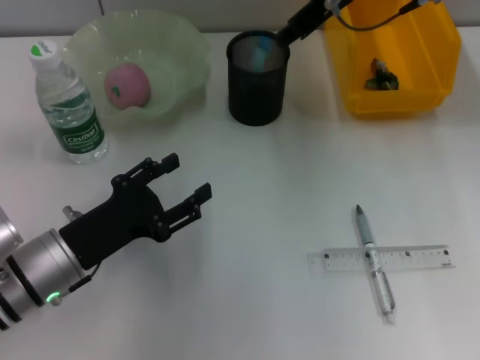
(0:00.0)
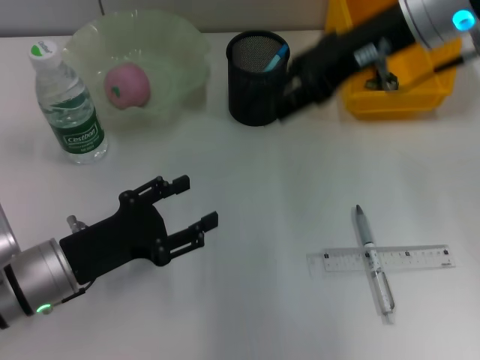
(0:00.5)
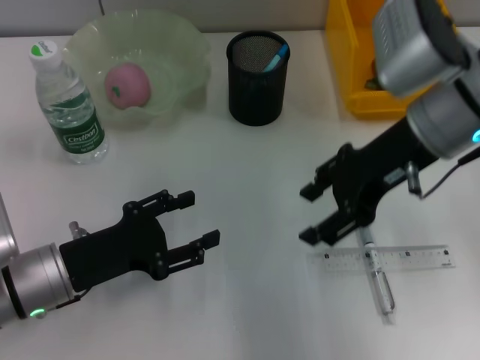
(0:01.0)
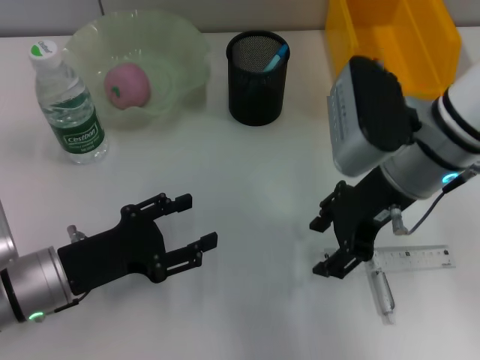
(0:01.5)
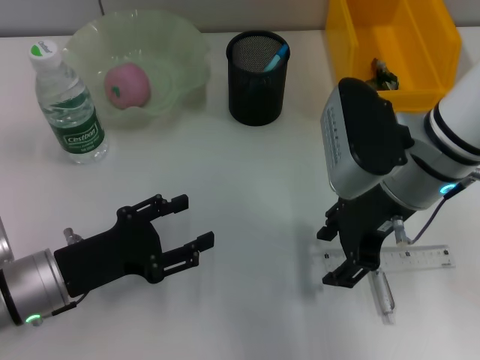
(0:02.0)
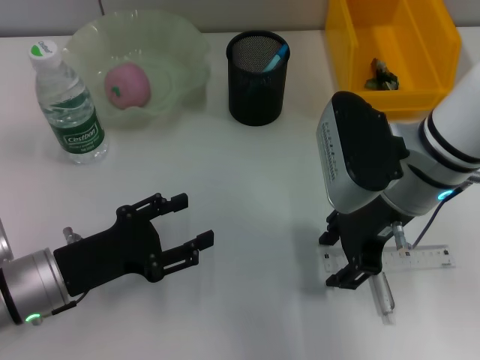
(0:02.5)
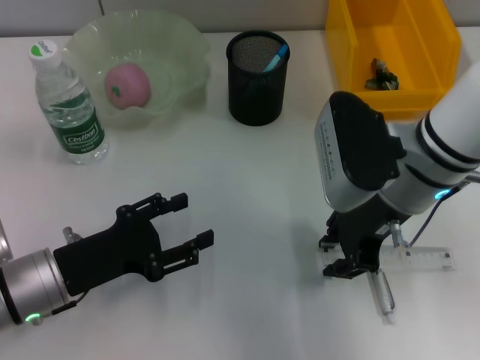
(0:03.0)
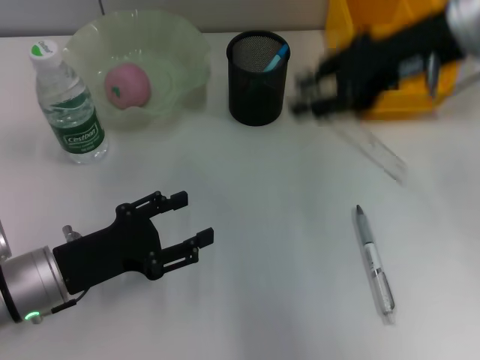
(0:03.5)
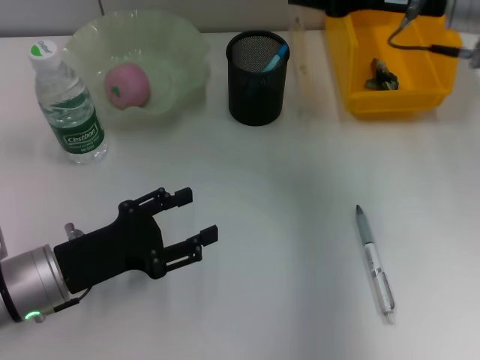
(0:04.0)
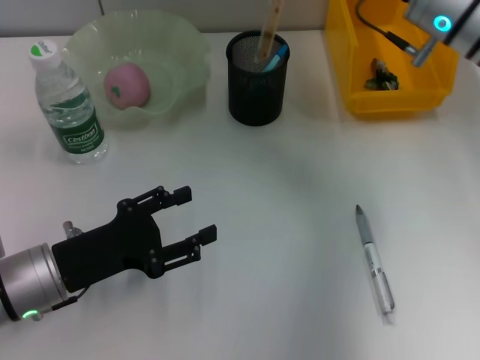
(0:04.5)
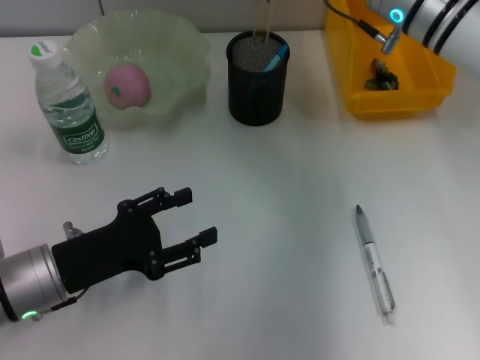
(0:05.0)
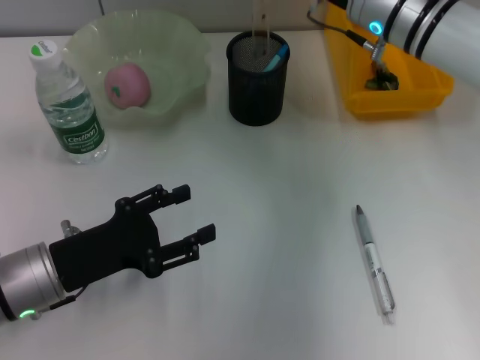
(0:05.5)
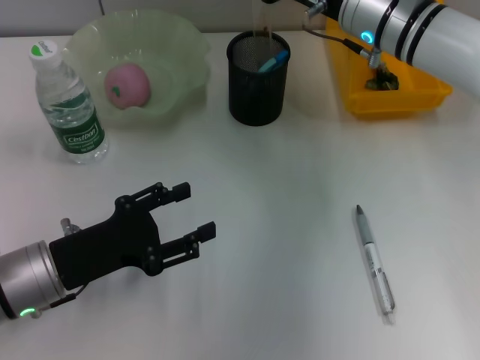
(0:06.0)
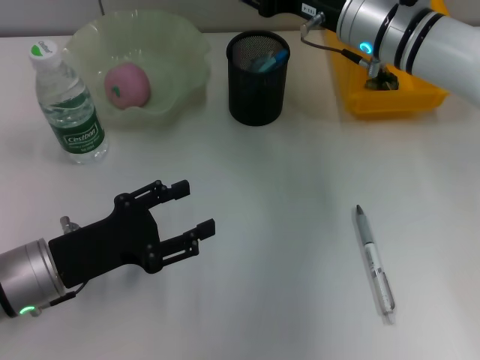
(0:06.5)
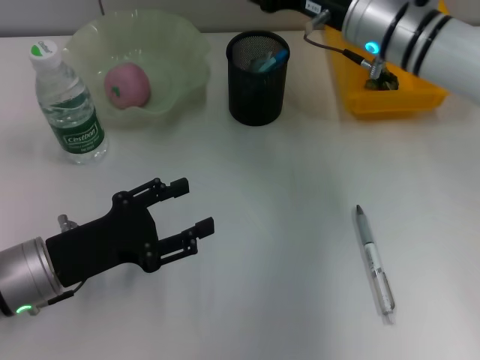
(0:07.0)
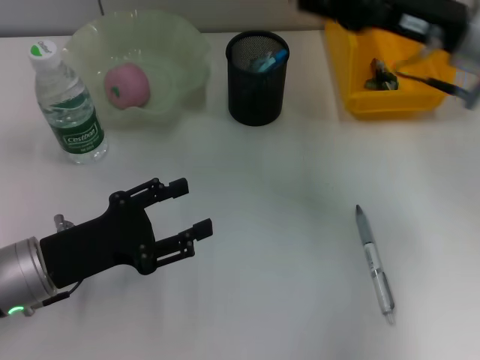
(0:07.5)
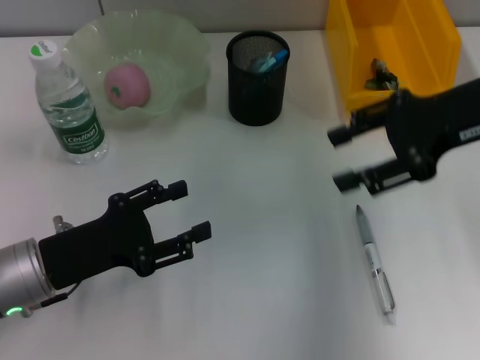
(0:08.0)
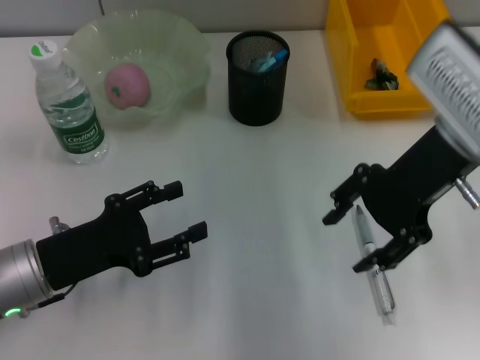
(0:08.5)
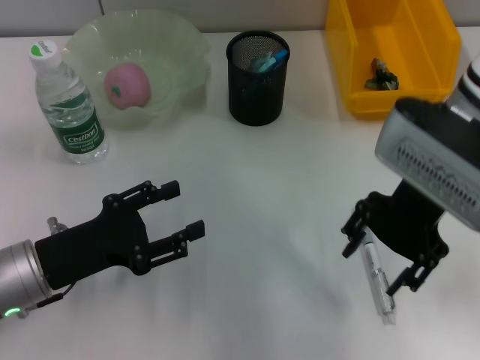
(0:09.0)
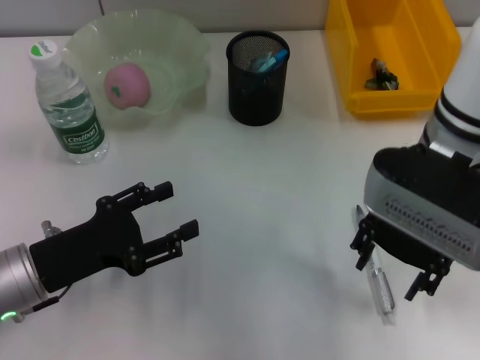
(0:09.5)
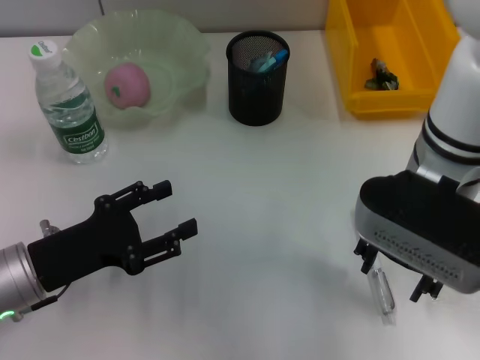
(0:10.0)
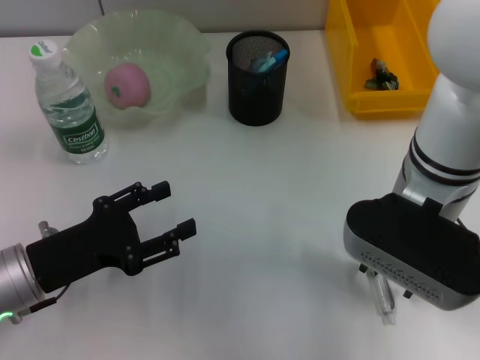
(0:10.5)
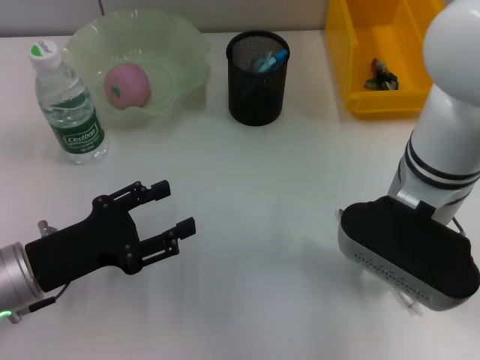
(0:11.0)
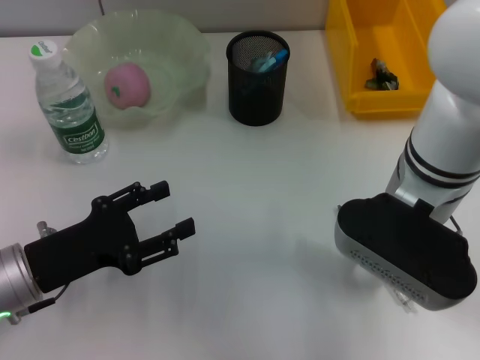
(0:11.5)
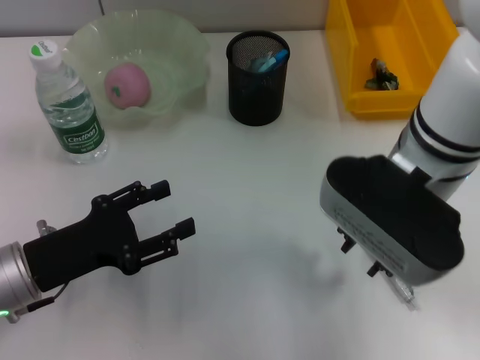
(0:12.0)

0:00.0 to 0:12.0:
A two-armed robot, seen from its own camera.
Step, 0:00.0 to 0:02.5: Grab the ruler with the right hand.
Step, 0:03.0 to 0:06.5: Place the ruler into the pen holder with the right hand.
0:00.0 to 0:02.0: The right gripper travels backward and downward by approximately 15 cm, and opens up.
0:02.0 to 0:04.0: The right gripper moves upward, forward and to the right, about 10 cm, and closes its fingers.
0:04.0 to 0:06.0: The right gripper heads to the left and downward, covering roughly 10 cm.
0:06.0 to 0:08.0: The right gripper shifts some 15 cm to the right, backward and upward, and opens its fingers.
0:08.0 to 0:10.0: The right gripper travels to the left by about 10 cm.
0:10.0 to 0:12.0: The right gripper closes.

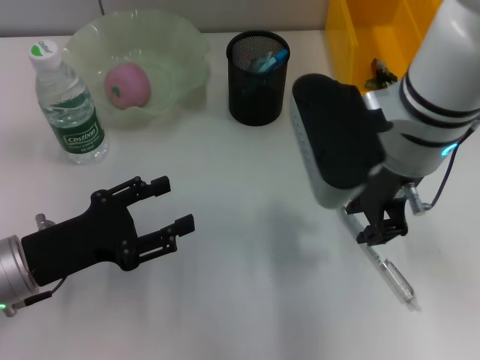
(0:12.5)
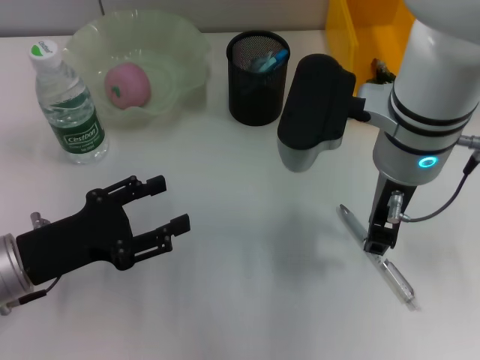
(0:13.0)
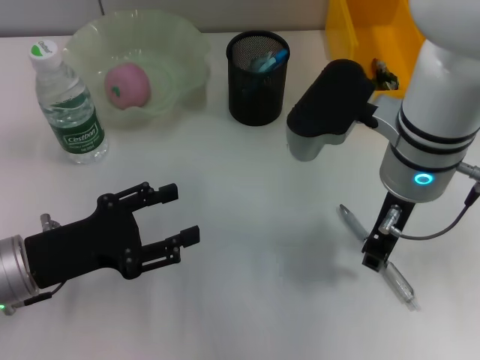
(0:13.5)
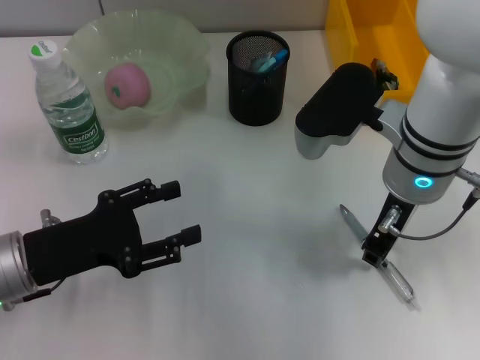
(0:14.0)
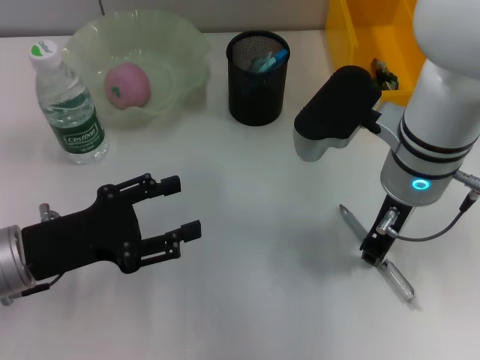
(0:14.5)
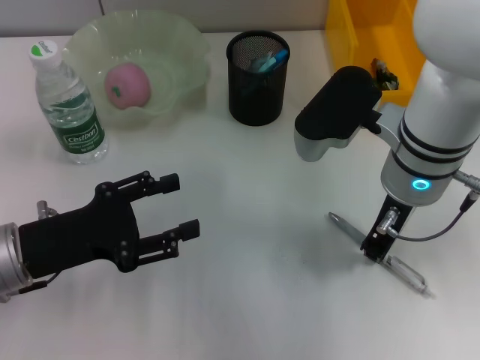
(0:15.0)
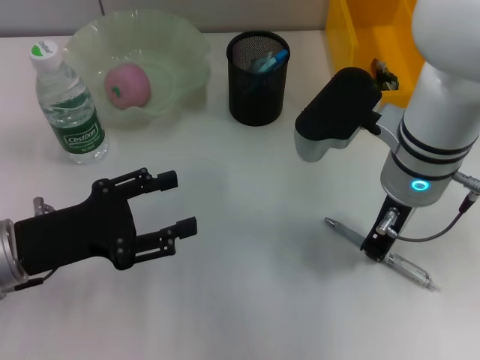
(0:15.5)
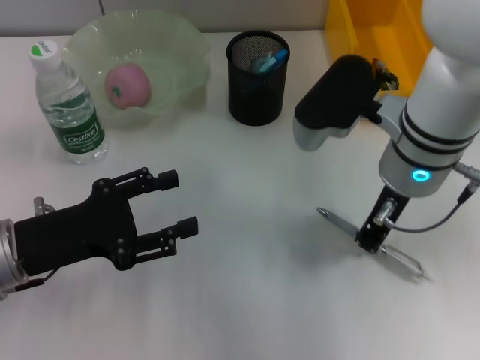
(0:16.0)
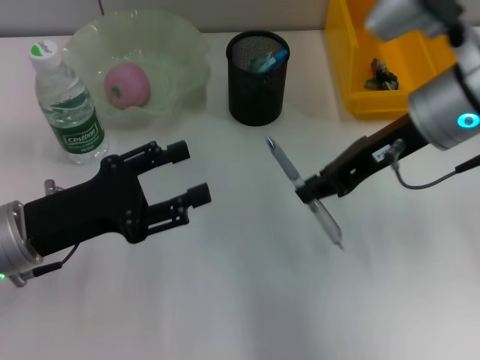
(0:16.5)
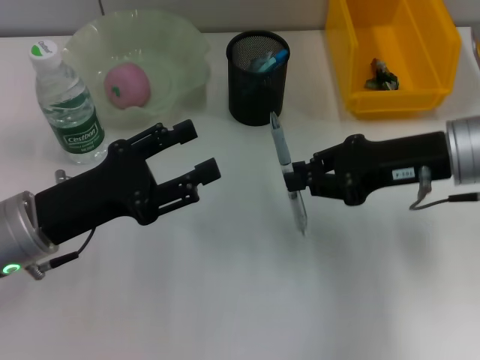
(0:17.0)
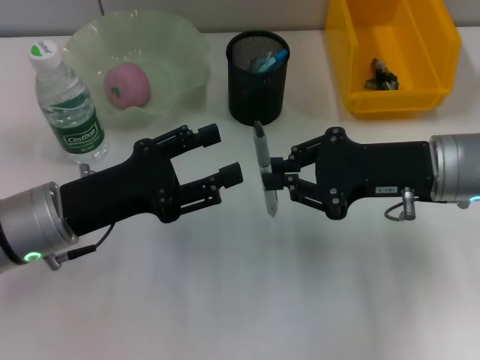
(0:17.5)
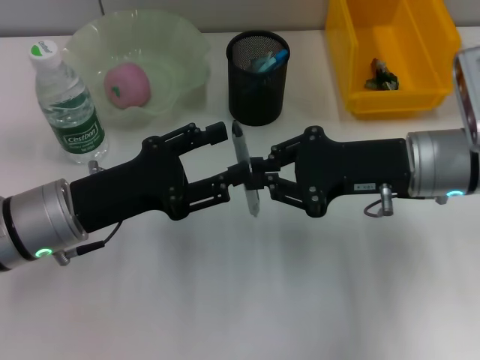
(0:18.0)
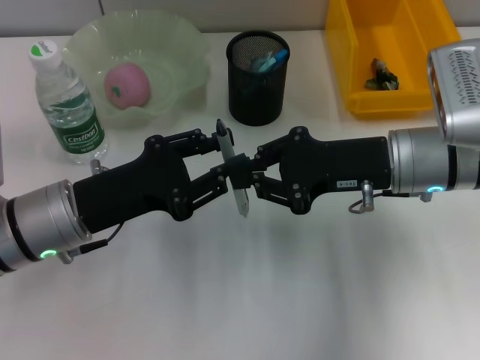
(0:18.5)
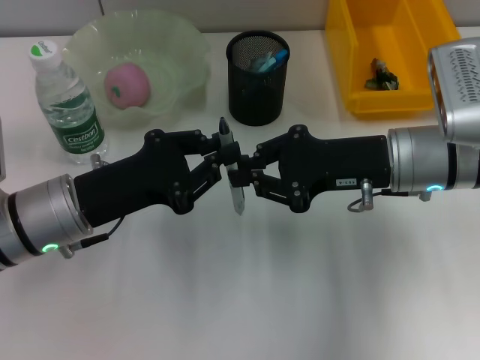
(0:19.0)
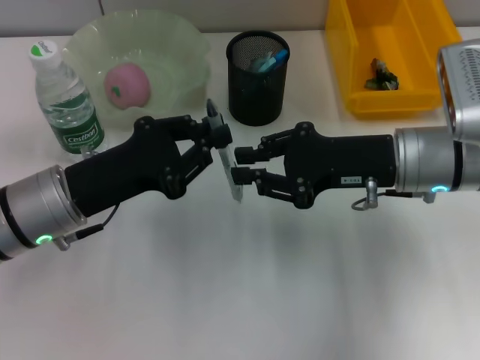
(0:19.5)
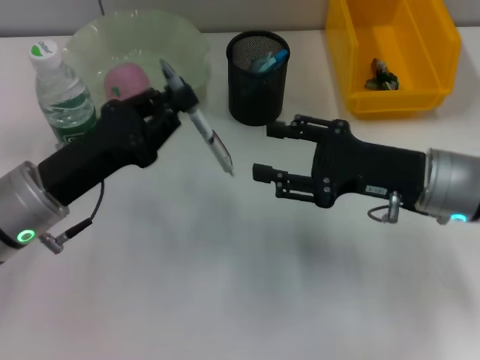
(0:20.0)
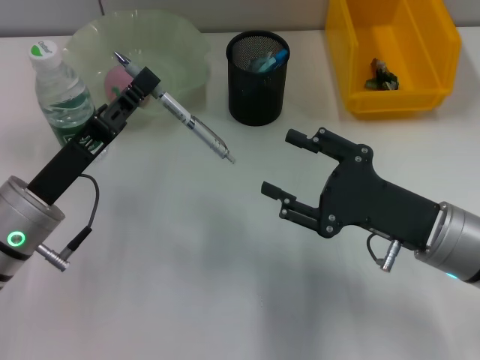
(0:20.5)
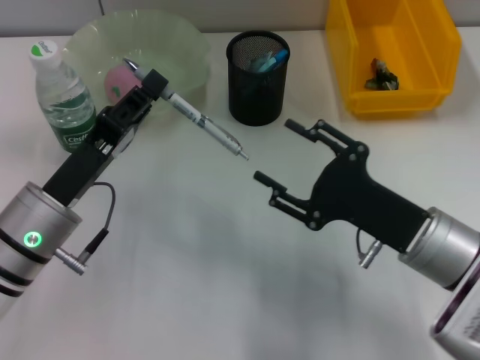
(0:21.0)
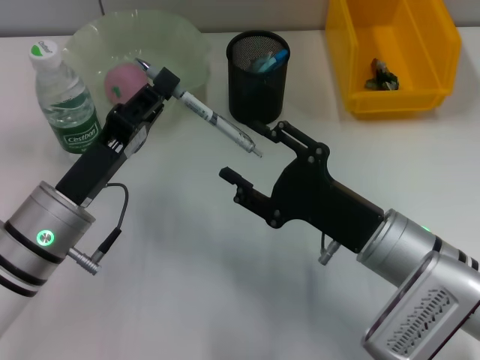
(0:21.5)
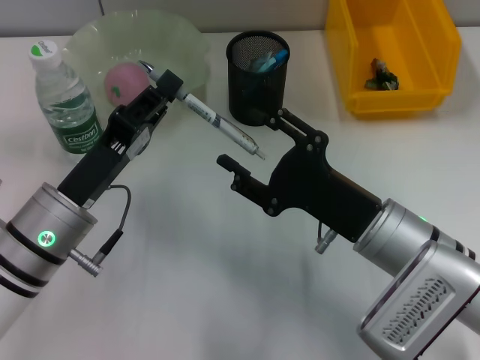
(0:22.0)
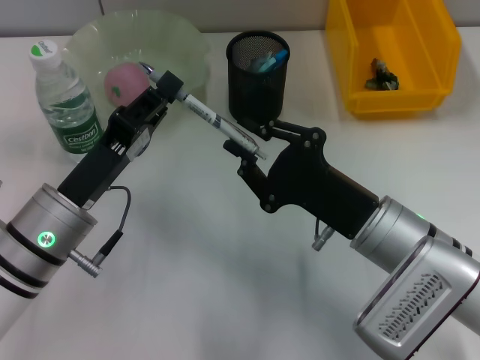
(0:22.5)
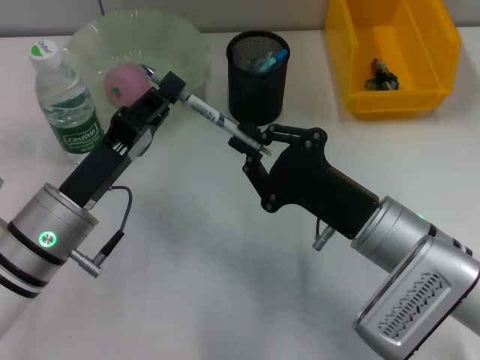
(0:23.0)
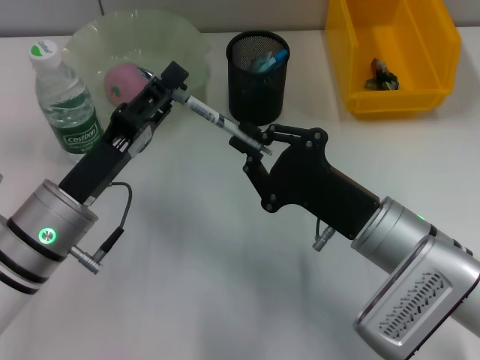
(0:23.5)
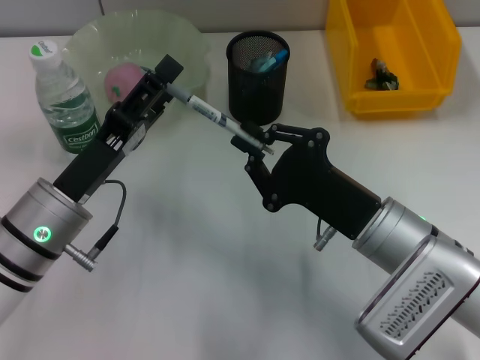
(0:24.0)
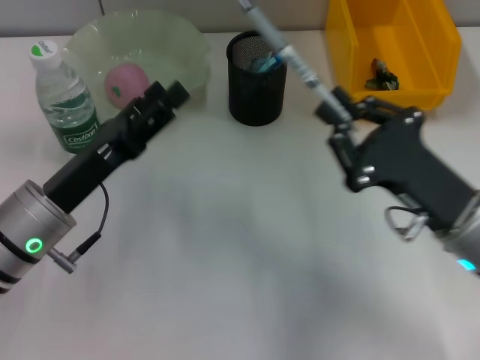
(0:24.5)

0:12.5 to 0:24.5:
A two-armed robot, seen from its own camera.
Step, 0:12.5 to 0:15.0: Grab the gray spring-action pen with the right hand.
Step, 0:16.0 to 0:19.5: Pass the gray spring-action pen from the right hand to the left hand.
Step, 0:20.0 to 0:24.0: Pass the gray spring-action pen from the left hand to the right hand.
0:12.5 to 0:14.5: The right gripper goes some 5 cm downward.
0:14.5 to 0:16.5: The right gripper moves roughly 5 cm.
0:16.5 to 0:18.5: The right gripper goes roughly 10 cm downward.
0:18.5 to 0:20.5: The right gripper heads backward and downward, covering about 10 cm, and opens; the left gripper closes its fingers.
0:20.5 to 0:22.5: The right gripper heads to the left, covering some 5 cm.
0:22.5 to 0:24.5: The right gripper moves to the right, about 5 cm, and closes; the left gripper opens up.

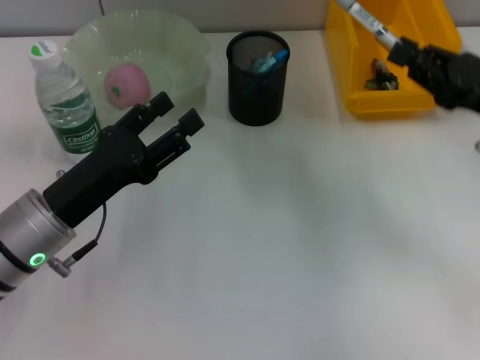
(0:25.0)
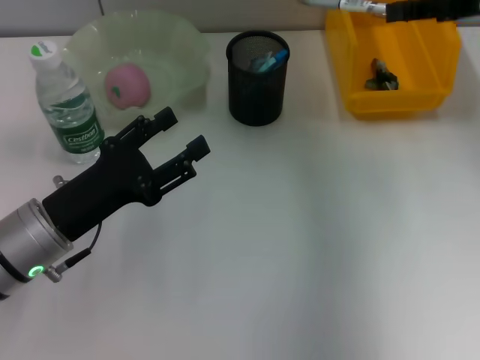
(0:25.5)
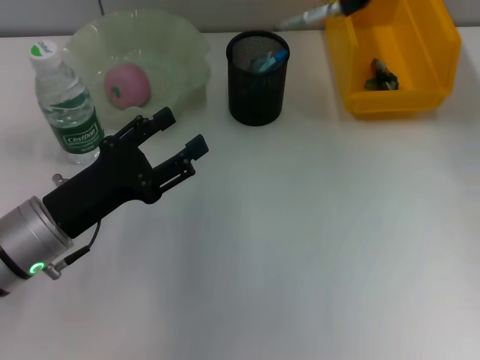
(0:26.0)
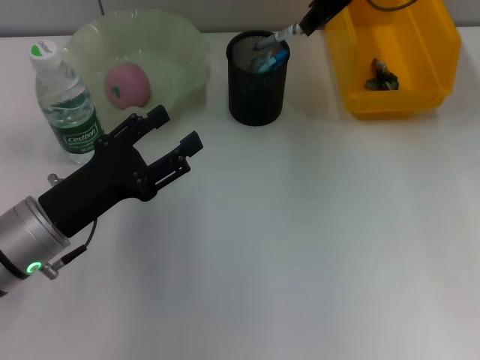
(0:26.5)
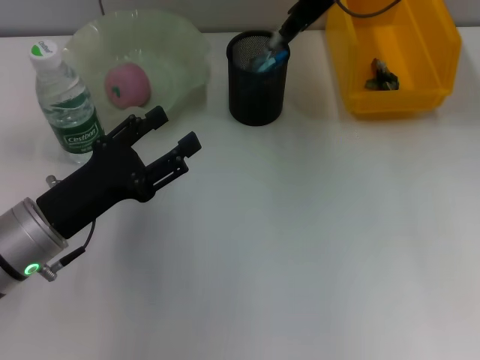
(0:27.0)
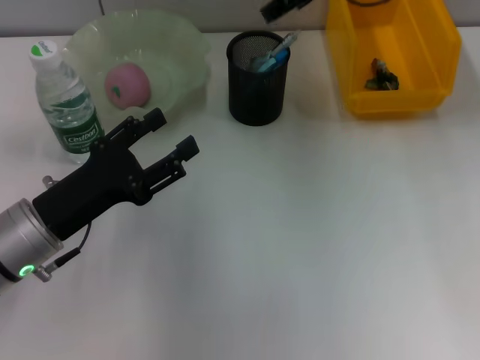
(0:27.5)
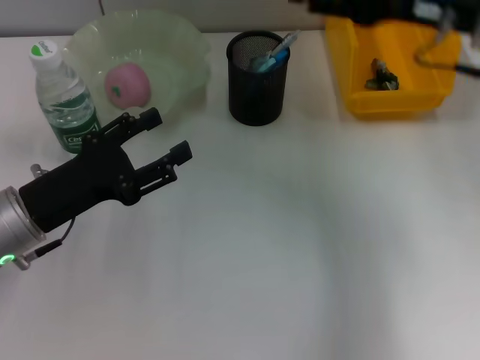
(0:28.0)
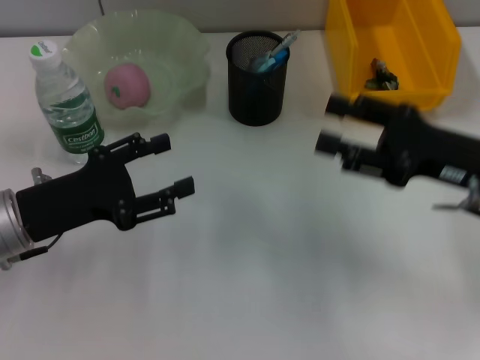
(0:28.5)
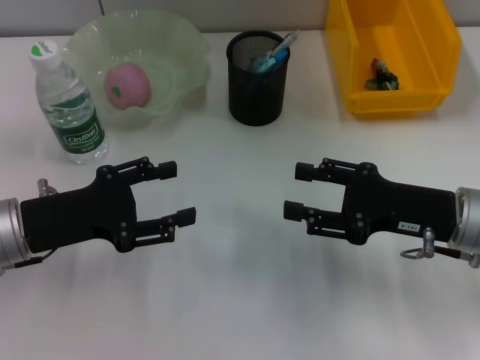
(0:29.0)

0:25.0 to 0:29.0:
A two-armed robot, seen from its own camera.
Step, 0:25.0 to 0:27.0: Place the gray spring-action pen into the pen holder with the right hand.
0:25.0 to 0:27.0: The right gripper shifts some 30 cm to the left, forward and upward.
0:27.0 to 0:29.0: The right gripper travels downward, backward and to the right by roughly 30 cm, and opens its fingers.
